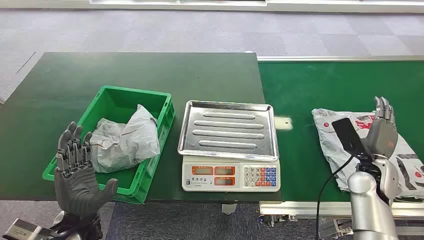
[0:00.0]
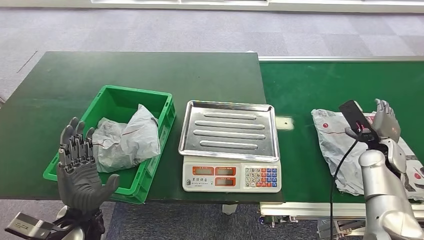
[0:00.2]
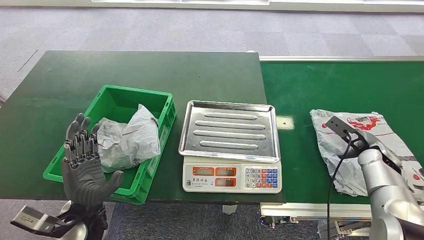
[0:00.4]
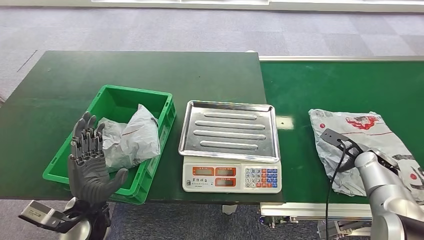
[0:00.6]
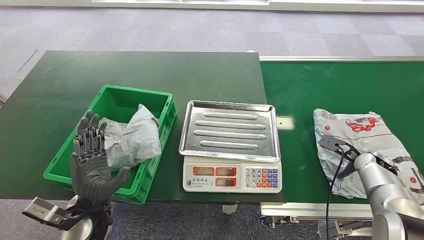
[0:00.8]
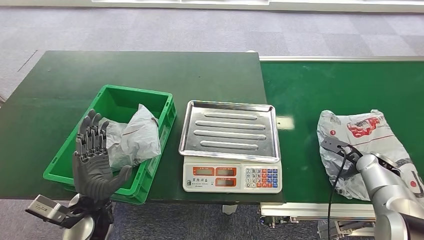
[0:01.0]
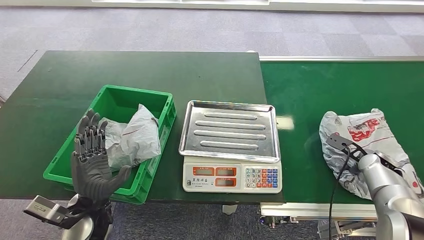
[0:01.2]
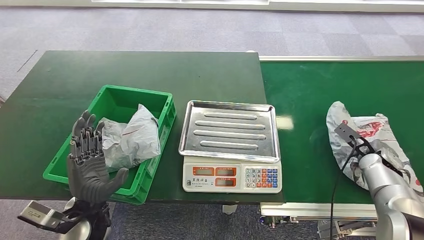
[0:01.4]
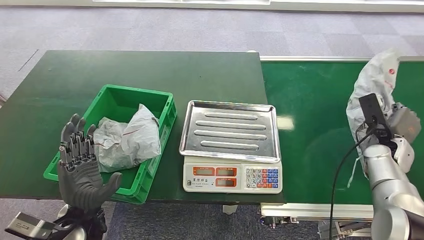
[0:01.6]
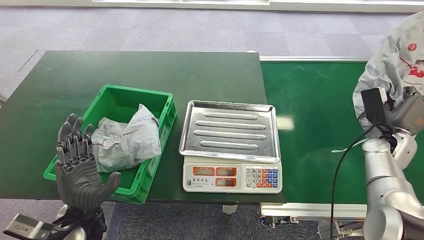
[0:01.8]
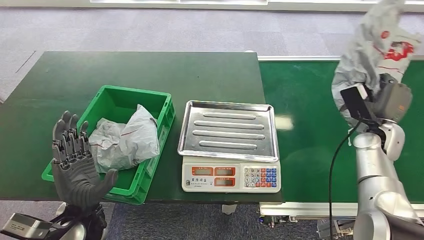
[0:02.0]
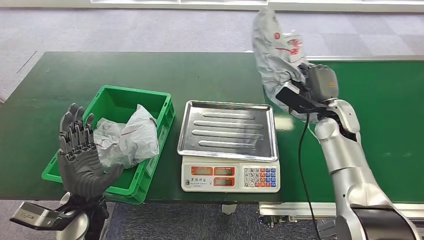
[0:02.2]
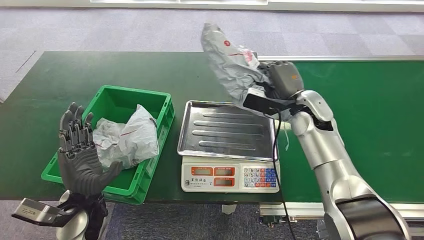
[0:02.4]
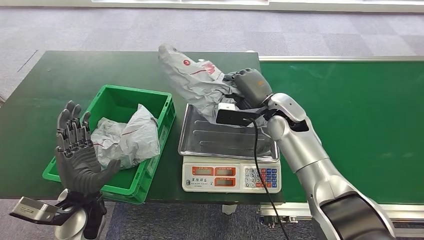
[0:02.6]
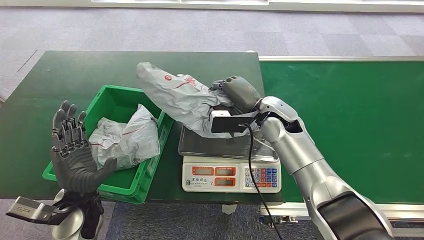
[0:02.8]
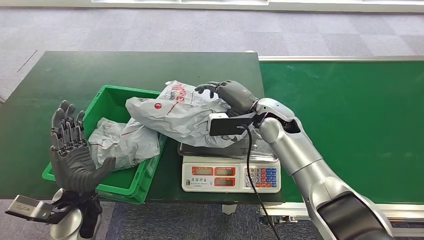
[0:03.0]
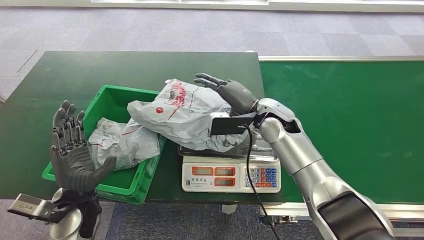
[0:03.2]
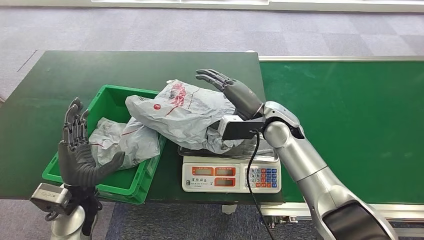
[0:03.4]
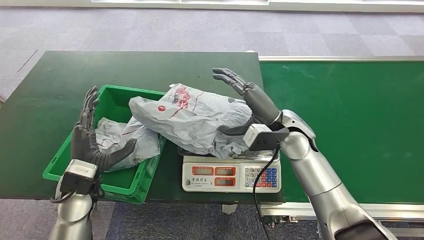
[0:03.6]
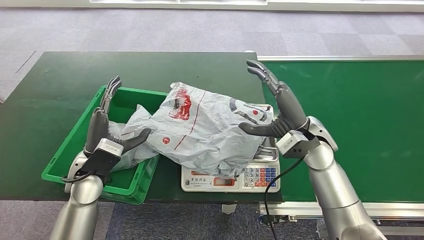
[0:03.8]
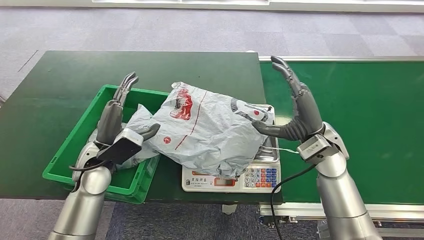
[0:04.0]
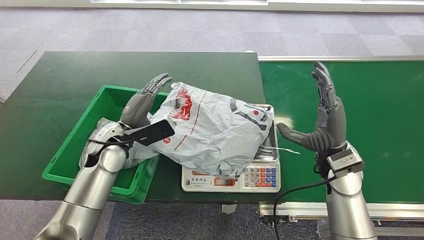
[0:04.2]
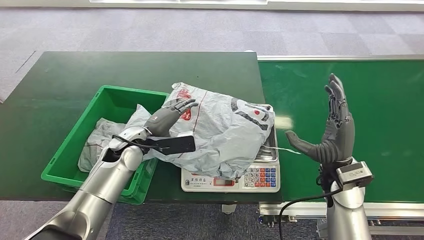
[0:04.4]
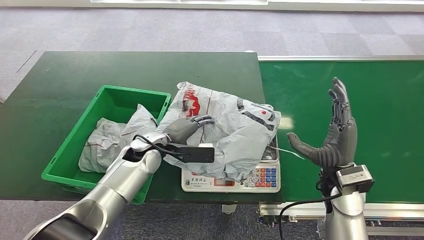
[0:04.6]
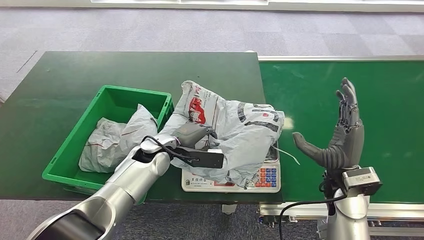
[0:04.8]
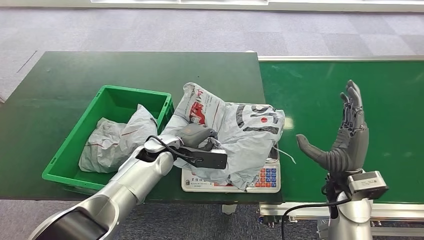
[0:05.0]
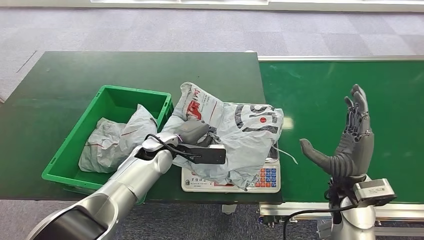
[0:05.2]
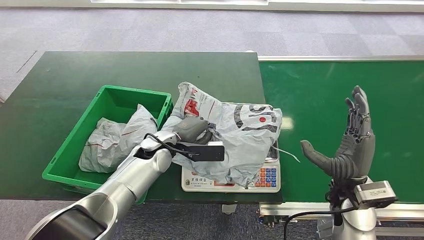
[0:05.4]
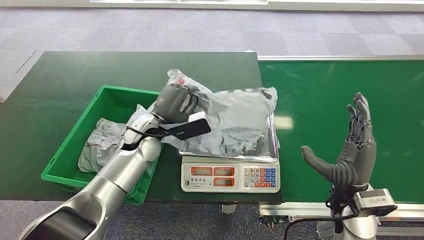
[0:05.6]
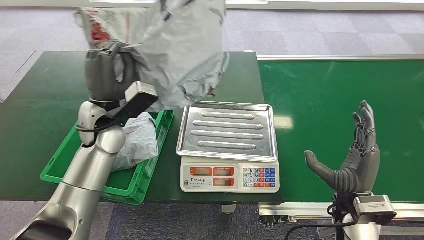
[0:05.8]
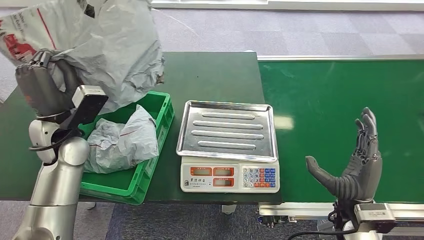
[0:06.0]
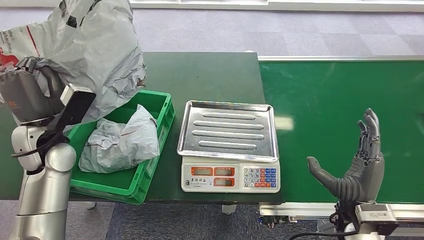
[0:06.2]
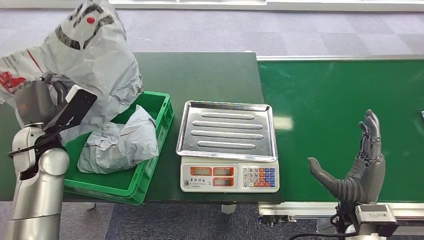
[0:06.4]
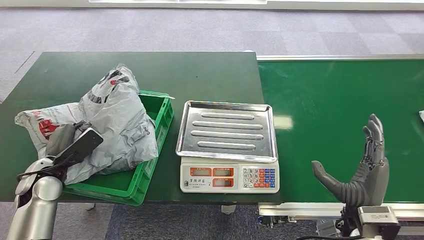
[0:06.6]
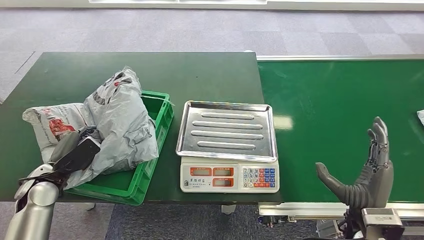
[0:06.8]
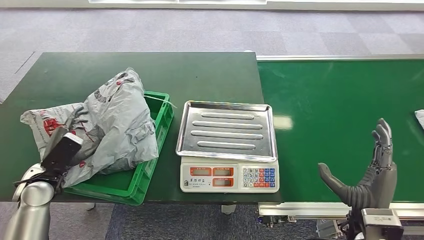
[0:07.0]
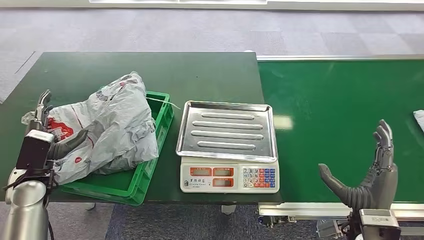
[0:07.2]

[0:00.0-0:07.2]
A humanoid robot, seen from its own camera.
Step, 0:00.0 to 0:02.2: Pick up the package from the conveyor belt.
Step, 0:02.4 to 0:04.4: Place the package onto the inbound machine.
Step, 0:04.6 to 0:06.0: Pick up the package from the inbound machine.
Step, 0:06.2 to 0:07.0: Place the package into the parcel locker.

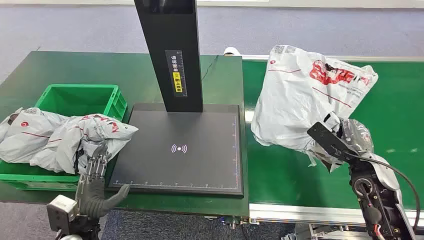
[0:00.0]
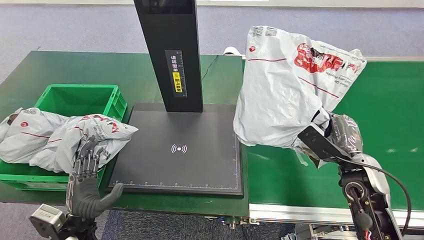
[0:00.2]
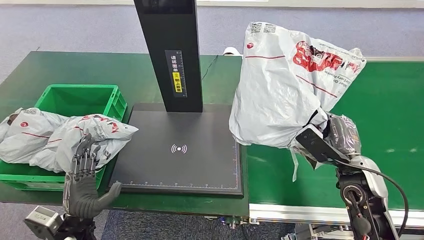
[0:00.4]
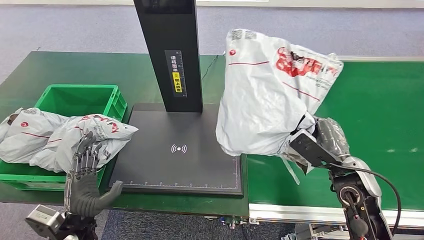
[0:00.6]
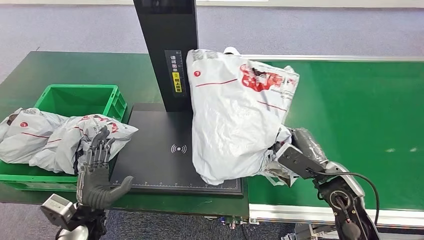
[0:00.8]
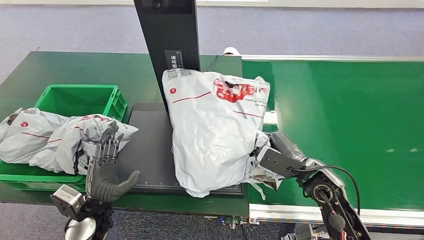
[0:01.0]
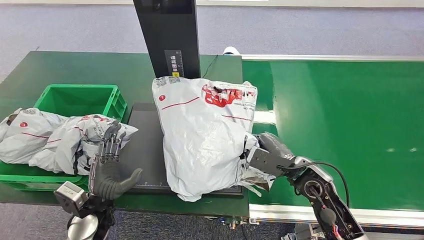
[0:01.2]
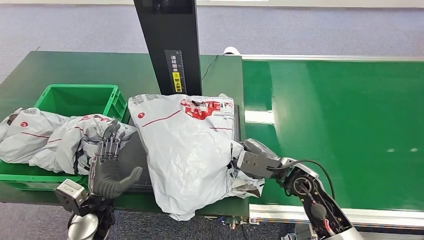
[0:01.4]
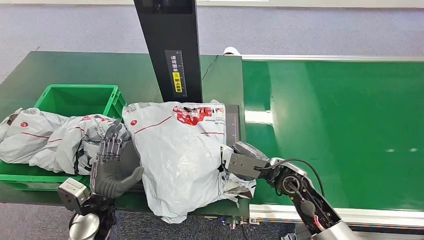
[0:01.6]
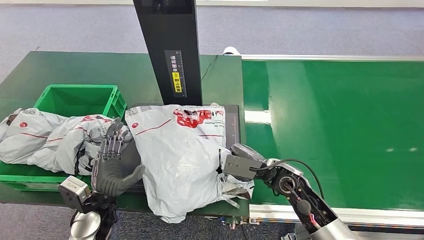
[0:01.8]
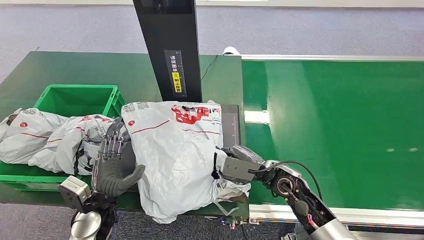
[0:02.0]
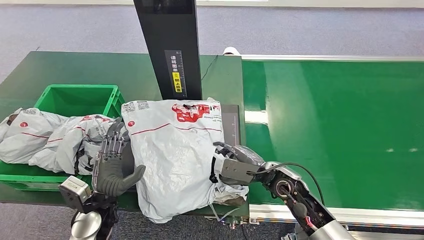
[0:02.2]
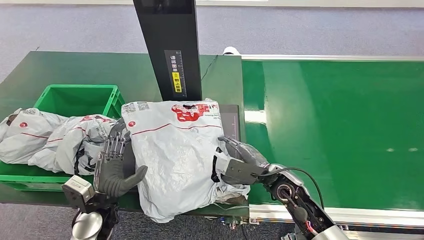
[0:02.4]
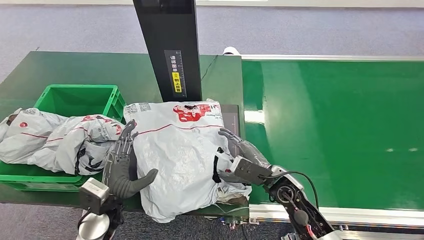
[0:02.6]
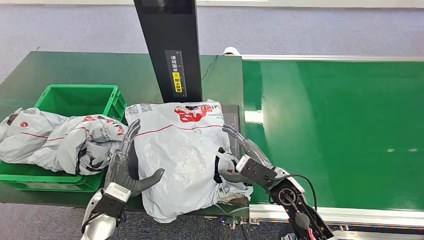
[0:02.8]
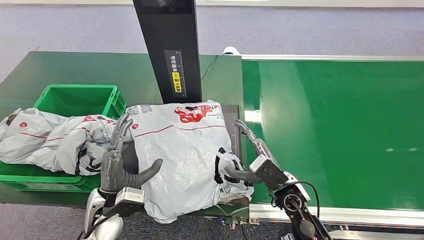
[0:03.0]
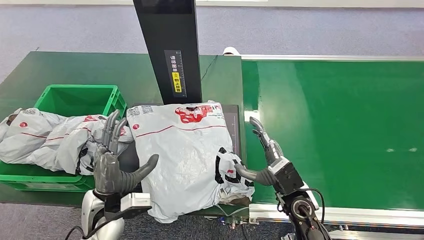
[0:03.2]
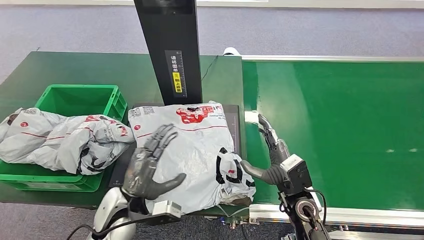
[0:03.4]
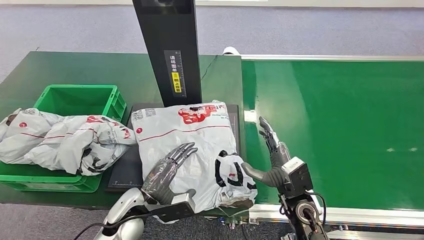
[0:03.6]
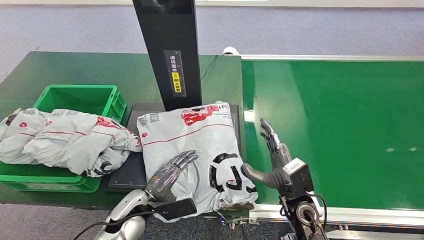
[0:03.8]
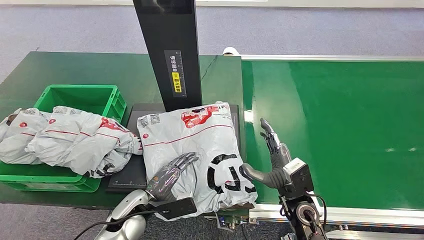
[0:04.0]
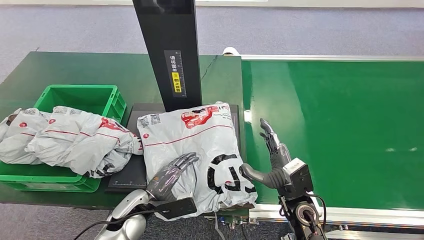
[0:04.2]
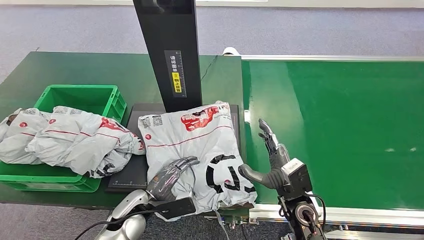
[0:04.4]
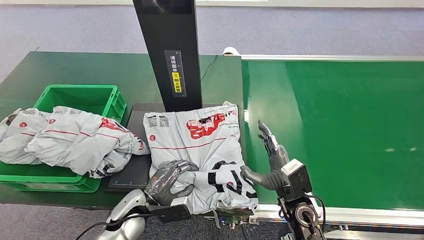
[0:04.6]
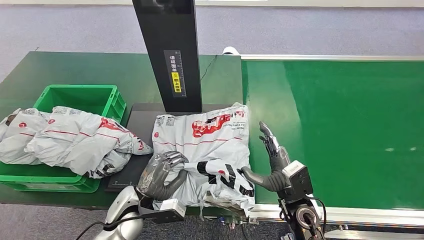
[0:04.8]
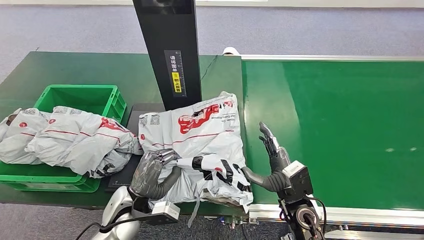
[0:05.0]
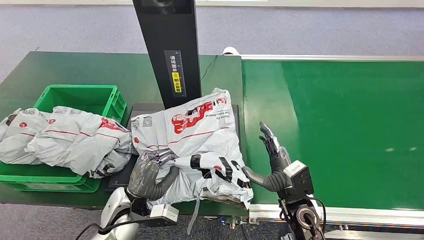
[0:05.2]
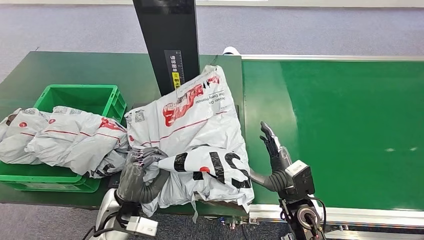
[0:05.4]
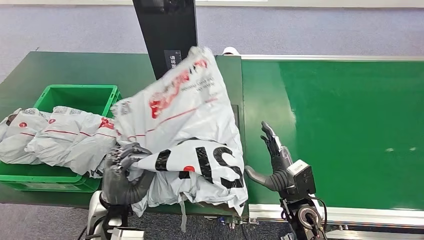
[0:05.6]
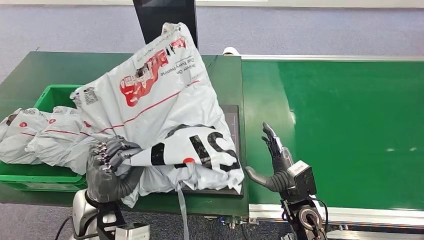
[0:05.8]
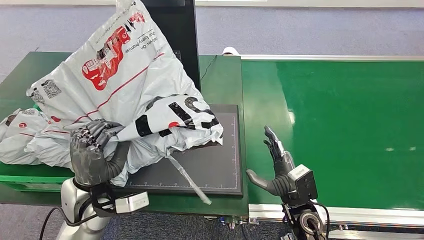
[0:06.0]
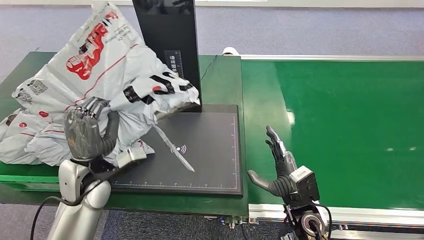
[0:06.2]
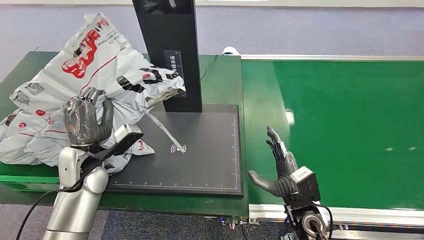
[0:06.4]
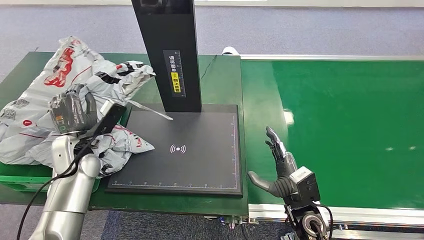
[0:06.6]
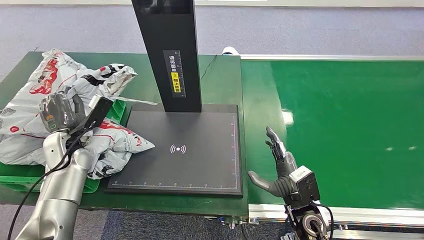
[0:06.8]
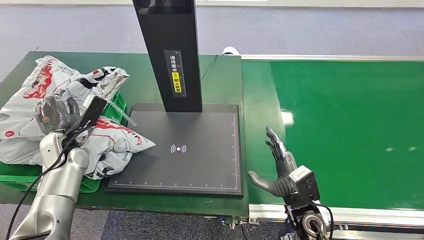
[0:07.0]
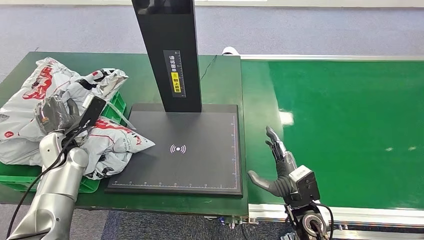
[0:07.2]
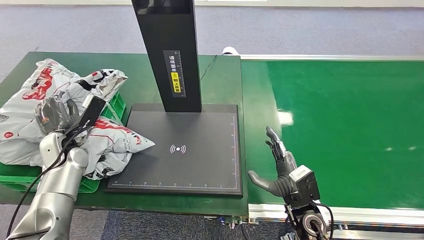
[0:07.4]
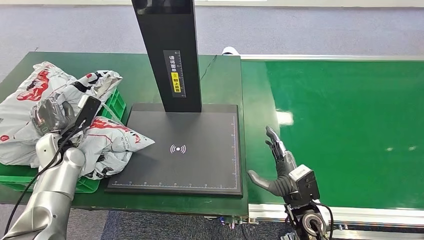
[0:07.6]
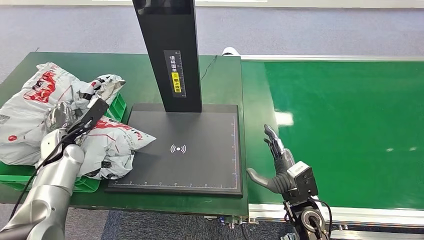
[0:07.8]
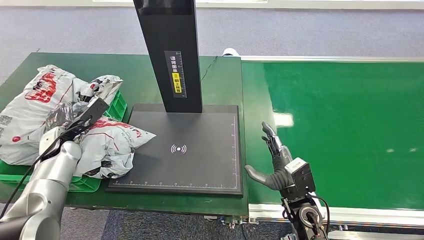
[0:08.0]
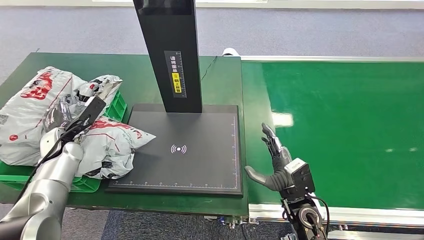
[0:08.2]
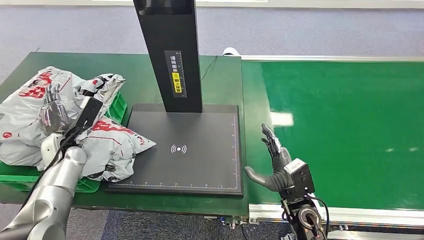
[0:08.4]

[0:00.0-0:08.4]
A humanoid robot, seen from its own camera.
Step, 0:07.6 to 0:08.4: Place the package into the parcel locker.
0:01.4 to 0:02.8: The right hand ends up roughly 5 cm from where it was.
0:04.2 to 0:05.6: The left hand is displaced upward by about 10 cm.
